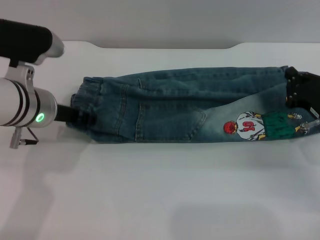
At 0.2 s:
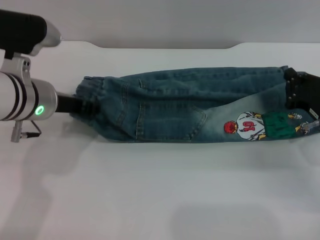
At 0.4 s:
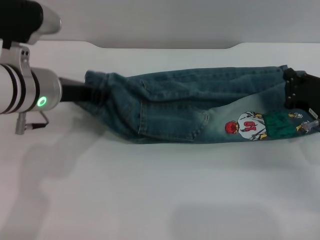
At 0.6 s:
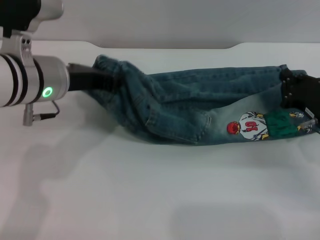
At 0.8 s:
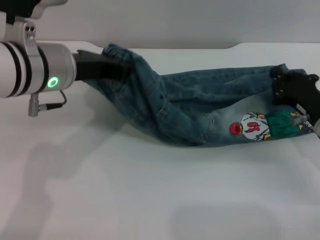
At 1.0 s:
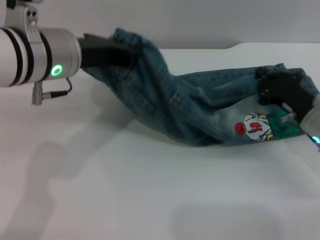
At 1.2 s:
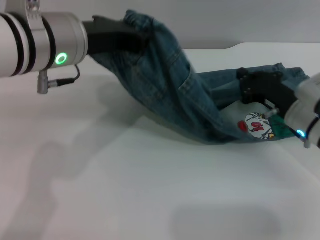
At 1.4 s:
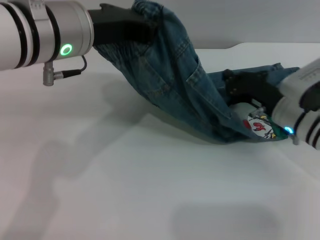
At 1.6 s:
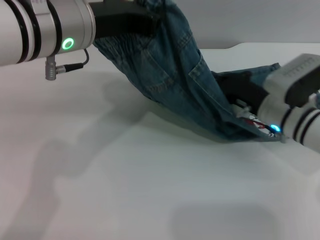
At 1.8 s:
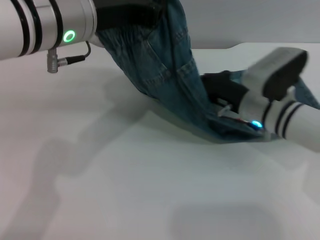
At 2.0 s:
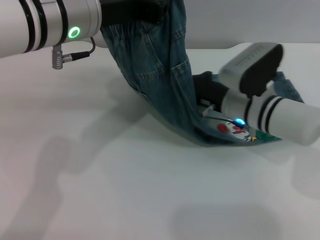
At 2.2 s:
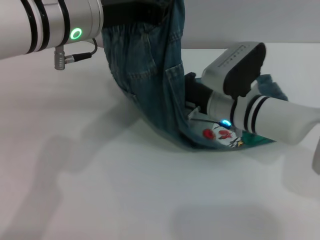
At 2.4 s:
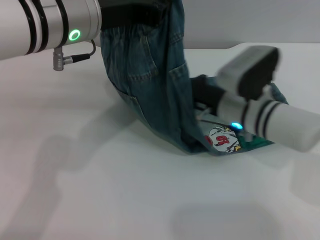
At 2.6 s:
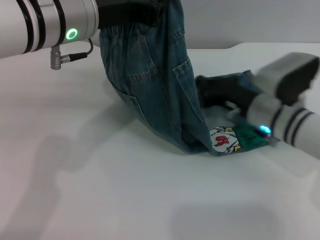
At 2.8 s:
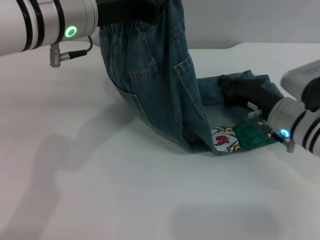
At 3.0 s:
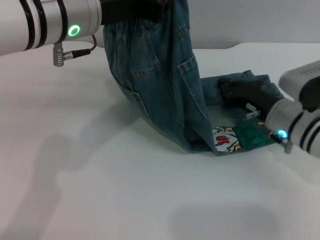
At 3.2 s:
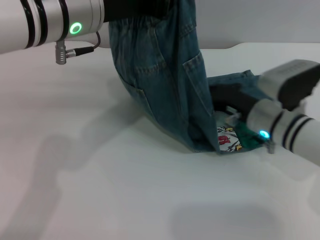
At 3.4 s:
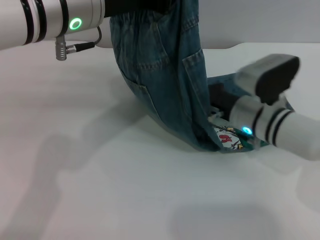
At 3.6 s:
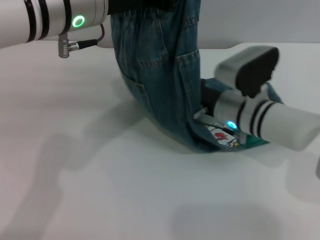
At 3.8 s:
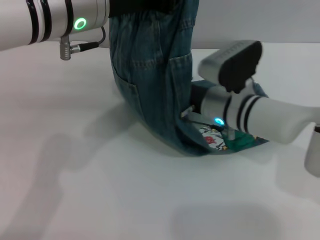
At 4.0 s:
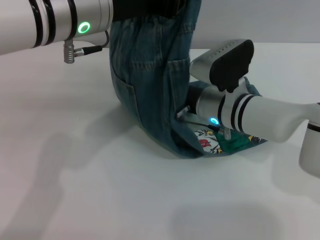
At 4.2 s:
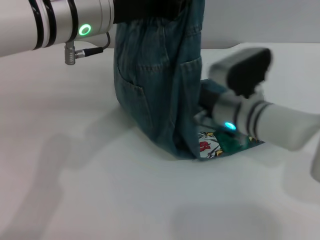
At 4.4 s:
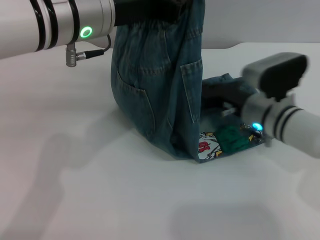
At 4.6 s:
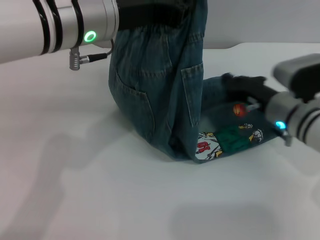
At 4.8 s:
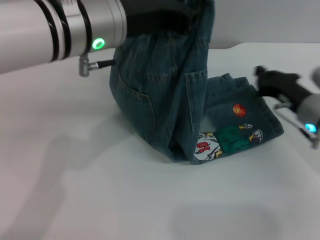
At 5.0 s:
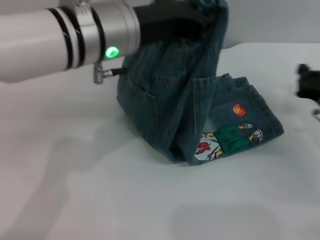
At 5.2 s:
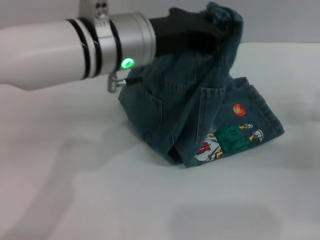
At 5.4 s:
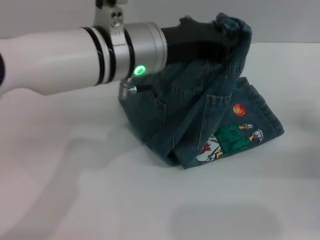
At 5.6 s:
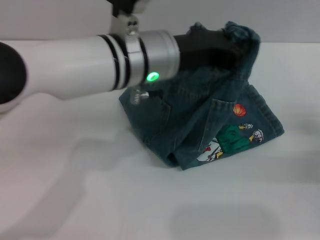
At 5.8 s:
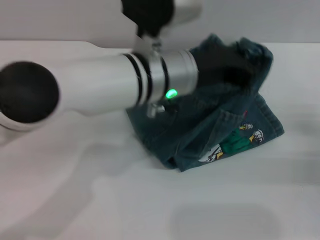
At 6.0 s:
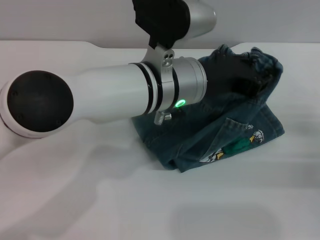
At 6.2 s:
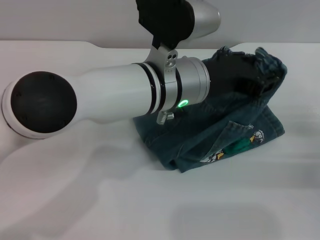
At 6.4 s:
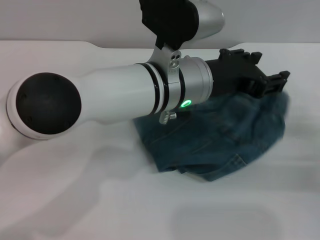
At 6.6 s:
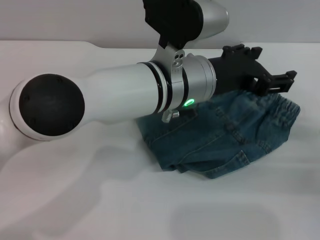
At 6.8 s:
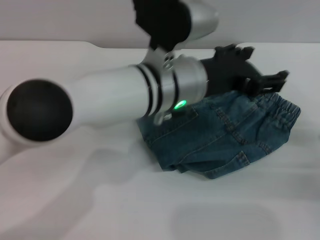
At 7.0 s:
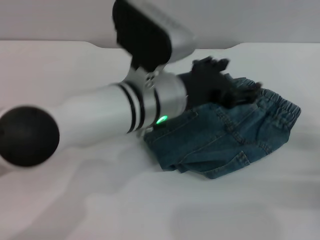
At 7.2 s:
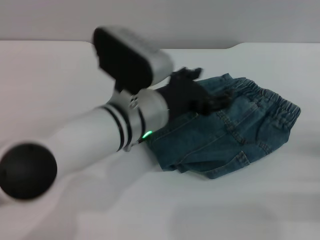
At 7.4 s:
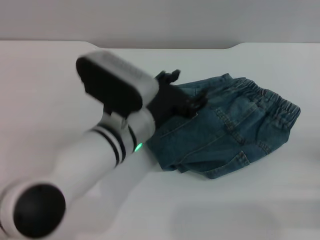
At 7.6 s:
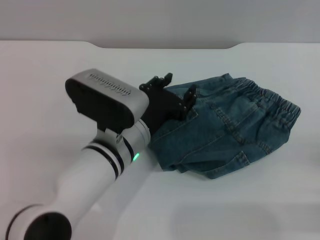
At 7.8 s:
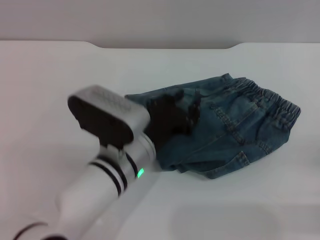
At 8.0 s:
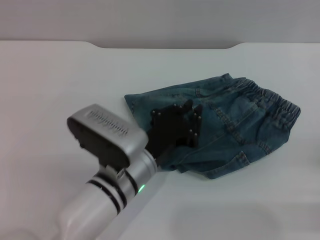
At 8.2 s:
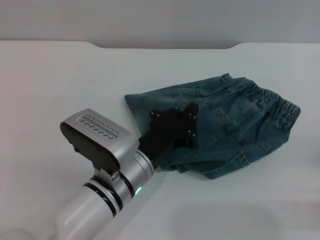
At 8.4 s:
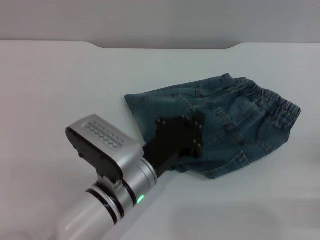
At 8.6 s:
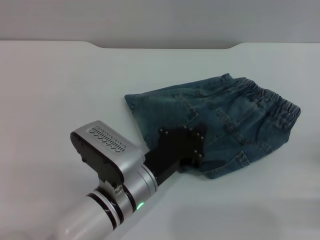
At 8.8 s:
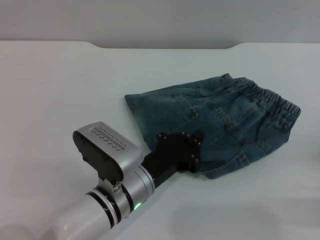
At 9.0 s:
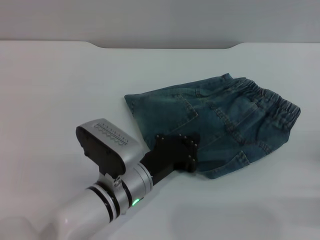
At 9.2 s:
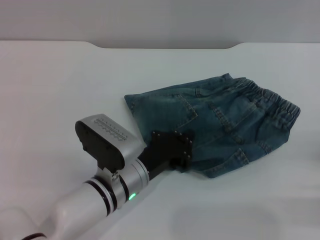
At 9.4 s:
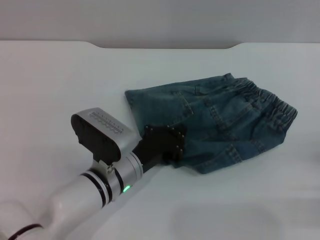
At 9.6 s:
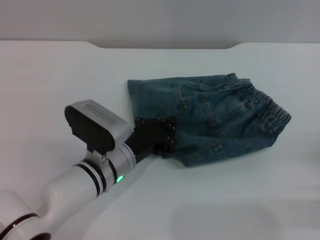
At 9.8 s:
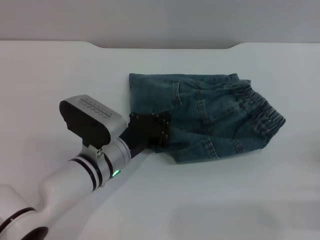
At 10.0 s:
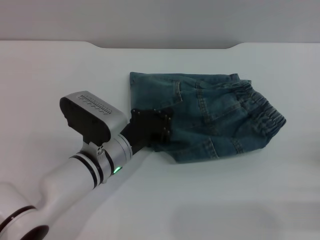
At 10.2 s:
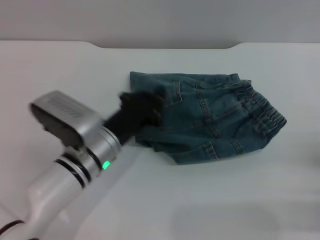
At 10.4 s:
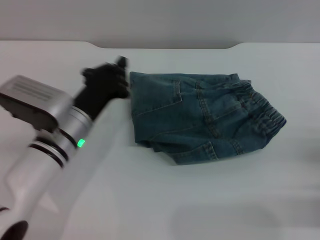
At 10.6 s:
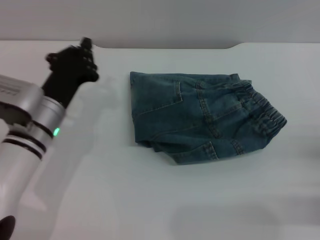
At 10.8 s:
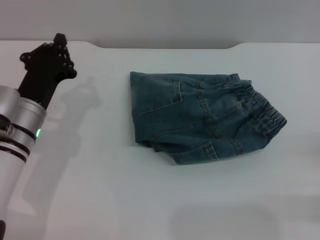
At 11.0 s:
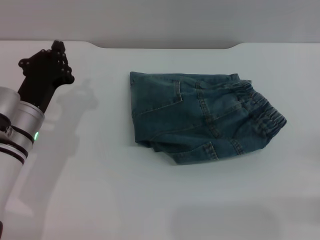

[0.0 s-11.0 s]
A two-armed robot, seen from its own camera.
Step, 0.0 to 6.6 s: Fold the pants from left to right with the left gripper.
0.0 to 1.6 s: The left gripper heads upward and to the right, covering approximately 15 cm. Meanwhile the right gripper heads to the left, covering approximately 10 cm.
1.6 to 3.2 s: The right gripper goes to the left and returns, about 10 cm each way.
3.2 to 4.8 s: The right gripper is displaced to the right by some 5 cm.
4.8 to 6.2 s: The right gripper is displaced to the right and backward by about 15 cm. The left gripper shifts approximately 10 cm to the right and downward.
6.2 to 7.8 s: The right gripper travels backward by approximately 5 cm. Meanwhile the left gripper goes roughly 10 cm downward and to the left, and opens.
7.8 to 9.4 s: The left gripper moves downward, some 5 cm, and closes up.
9.4 to 11.0 s: The left gripper heads to the left, covering about 15 cm.

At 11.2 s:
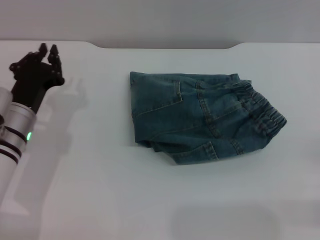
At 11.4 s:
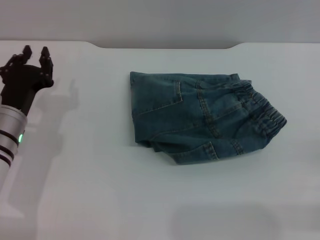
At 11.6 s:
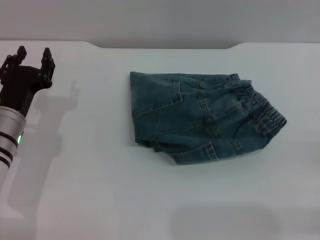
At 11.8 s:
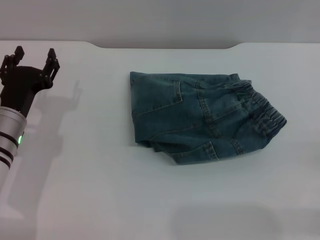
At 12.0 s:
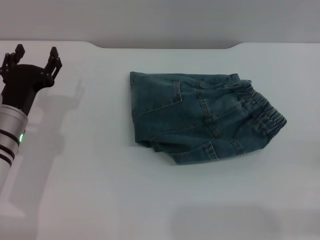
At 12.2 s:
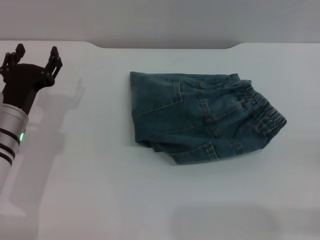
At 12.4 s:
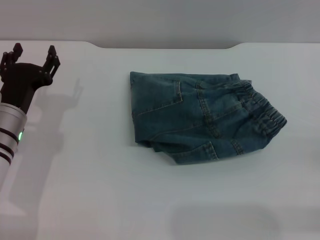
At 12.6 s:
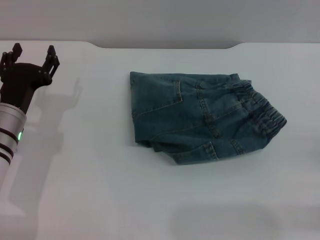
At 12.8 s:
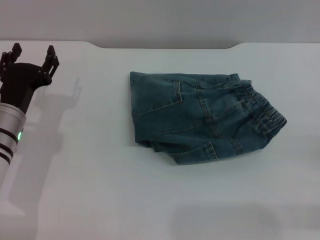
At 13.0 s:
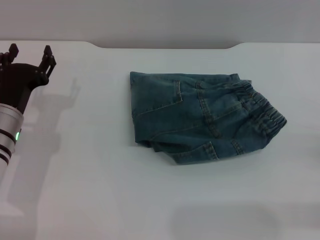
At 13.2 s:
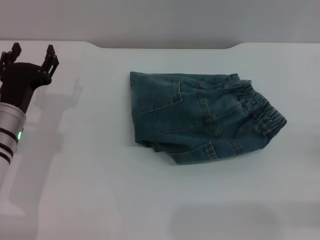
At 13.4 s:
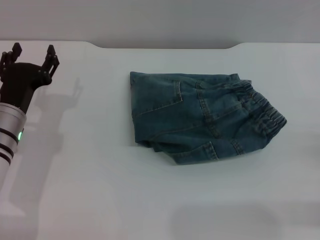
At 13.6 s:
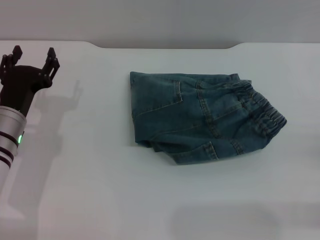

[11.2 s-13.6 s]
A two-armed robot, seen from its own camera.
11.2 to 12.4 s: The left gripper opens.
12.4 to 13.6 s: Both grippers stay about where they are.

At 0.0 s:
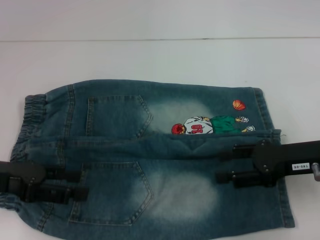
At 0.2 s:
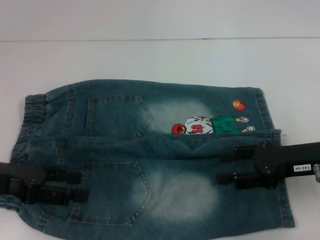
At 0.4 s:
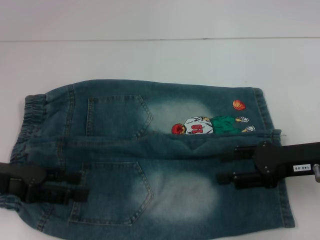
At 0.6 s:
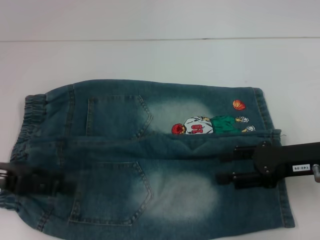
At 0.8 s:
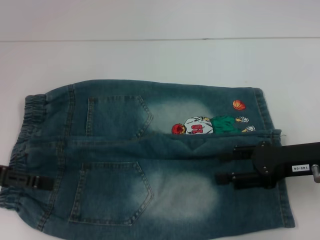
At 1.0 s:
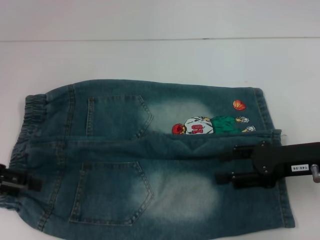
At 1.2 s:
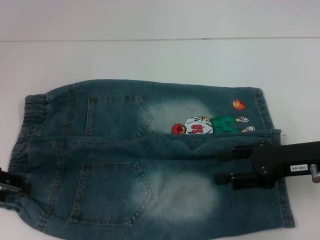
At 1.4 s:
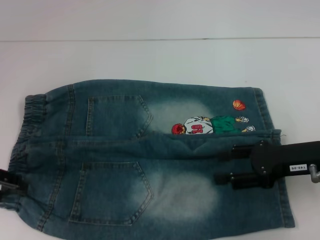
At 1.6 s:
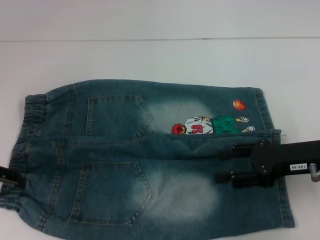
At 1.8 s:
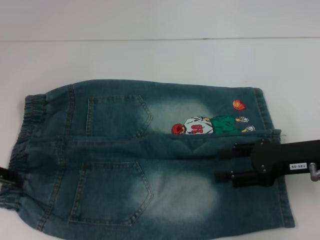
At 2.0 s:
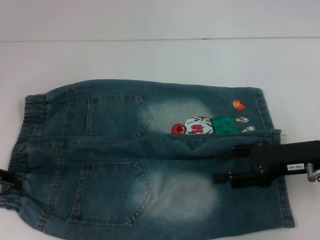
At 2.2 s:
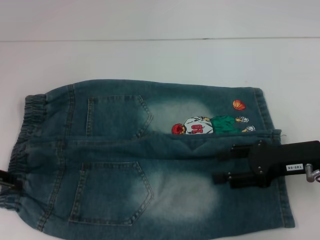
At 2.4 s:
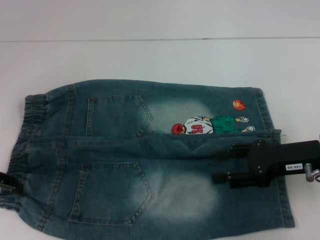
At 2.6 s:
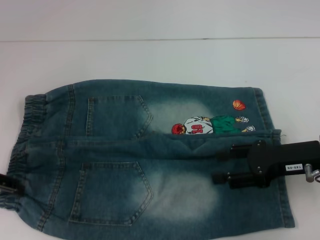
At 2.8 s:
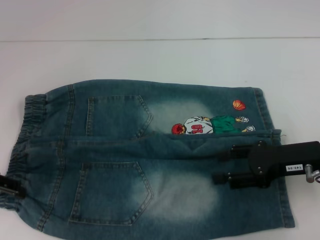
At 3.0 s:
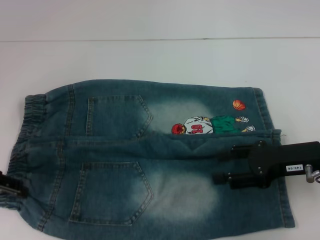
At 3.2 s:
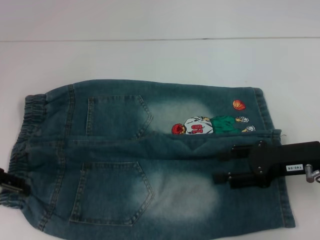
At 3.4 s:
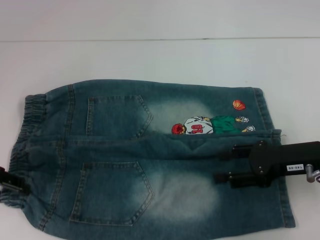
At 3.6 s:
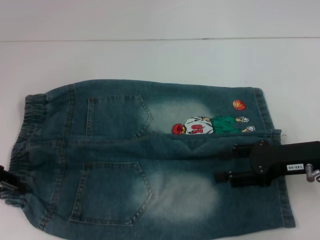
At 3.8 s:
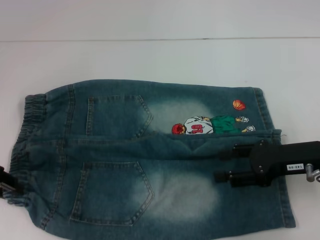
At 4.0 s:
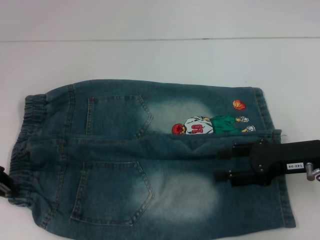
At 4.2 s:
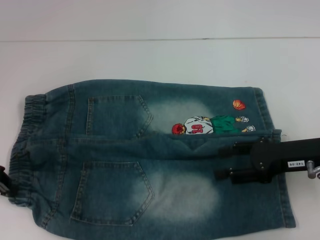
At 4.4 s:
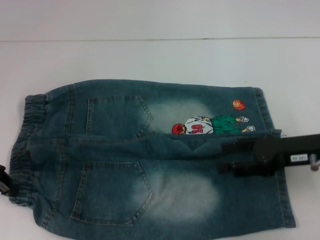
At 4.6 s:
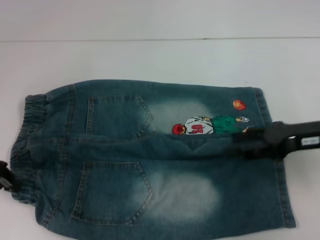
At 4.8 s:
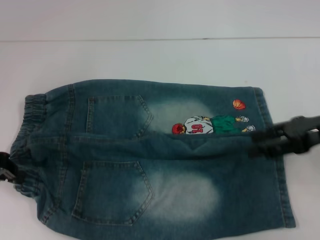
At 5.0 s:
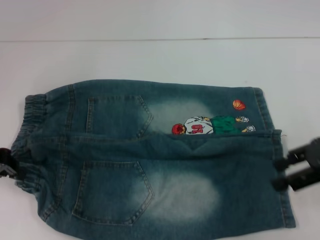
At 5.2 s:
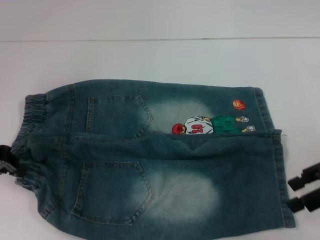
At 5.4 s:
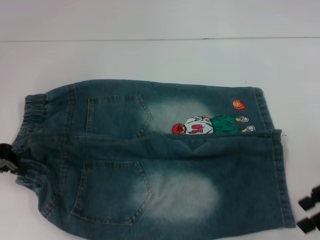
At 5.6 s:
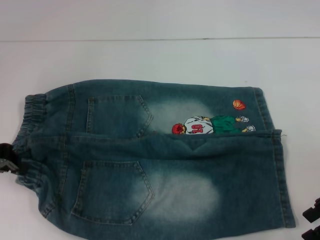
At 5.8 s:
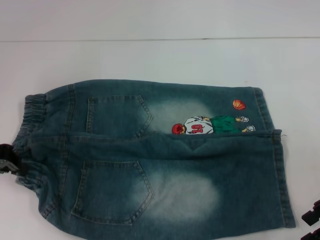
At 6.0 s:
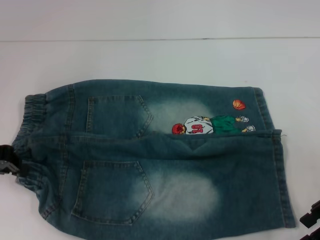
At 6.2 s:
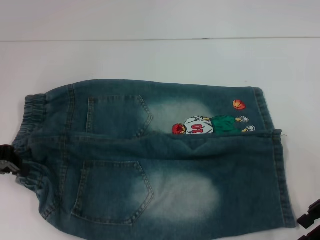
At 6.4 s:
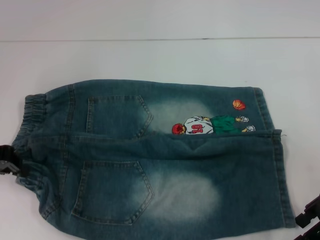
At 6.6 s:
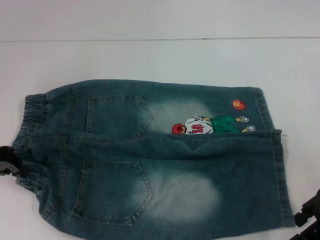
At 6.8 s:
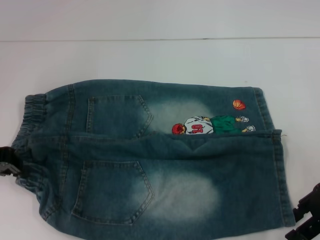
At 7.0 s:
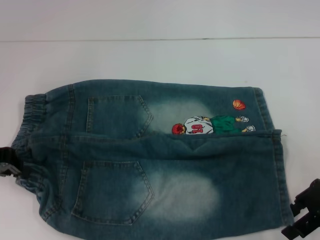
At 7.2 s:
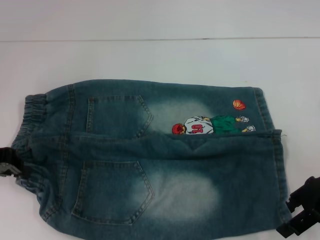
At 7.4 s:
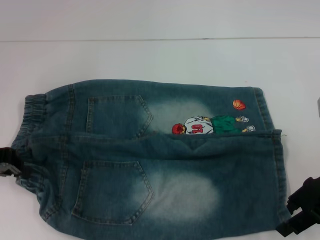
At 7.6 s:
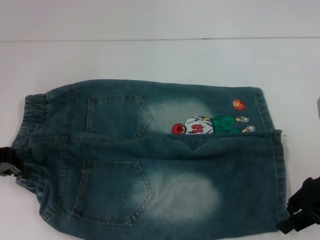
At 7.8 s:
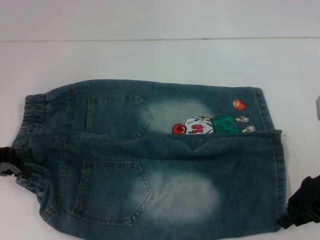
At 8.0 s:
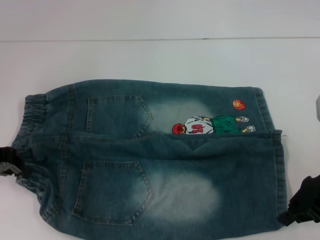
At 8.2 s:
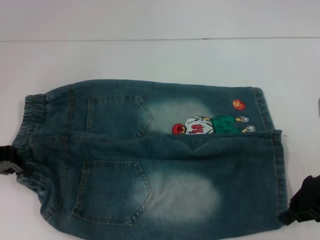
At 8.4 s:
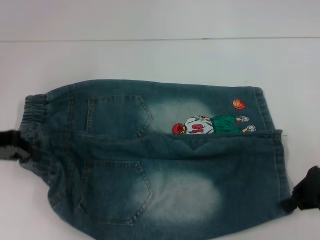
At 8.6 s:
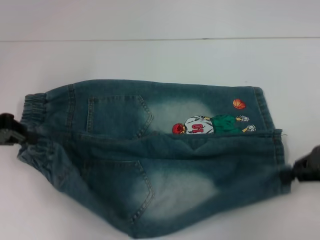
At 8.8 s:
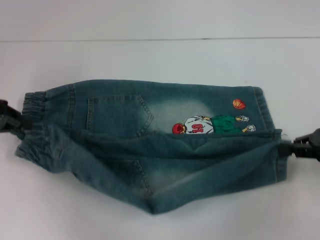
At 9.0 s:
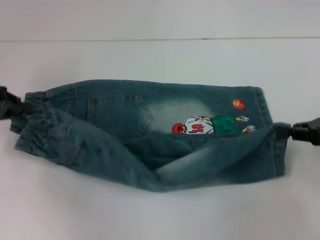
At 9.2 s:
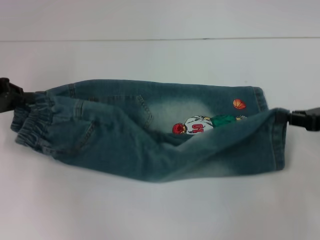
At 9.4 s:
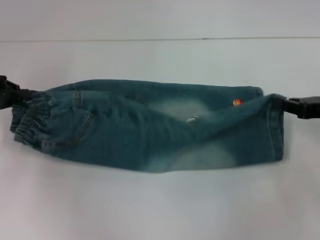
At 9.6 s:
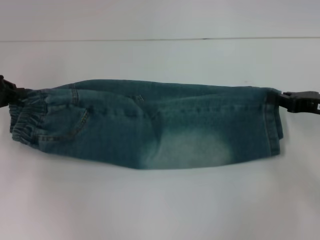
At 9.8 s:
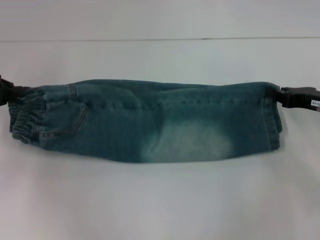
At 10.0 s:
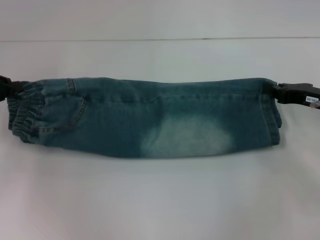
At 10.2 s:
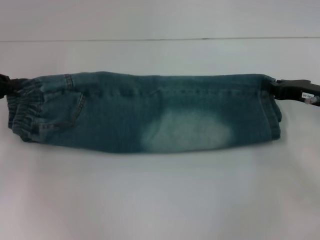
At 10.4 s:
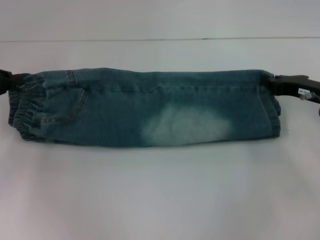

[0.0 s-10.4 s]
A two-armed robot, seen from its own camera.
Step, 0.0 to 4.8 s: Hold the lower left waistband with your left hand.
Step, 5.0 to 8.0 s: Grab the lower right pant leg with your right hand.
0.0 to 1.4 s: The left gripper moves roughly 5 cm.
3.0 to 4.4 s: The left gripper closes its fingers.
6.0 to 7.4 s: There are only small adjustments of the grippers.
7.4 to 9.0 s: The right gripper moves to the right, roughly 5 cm, and closes its fingers.
9.0 to 10.4 s: The right gripper shifts some 5 cm forward.
